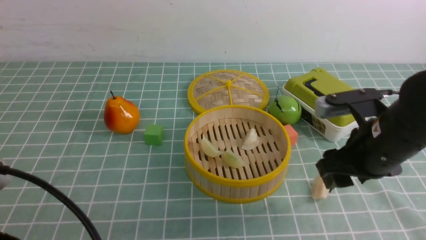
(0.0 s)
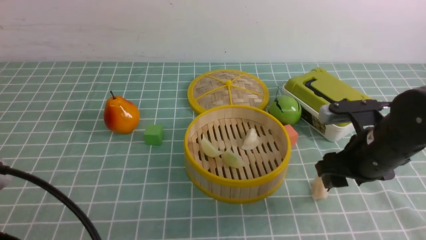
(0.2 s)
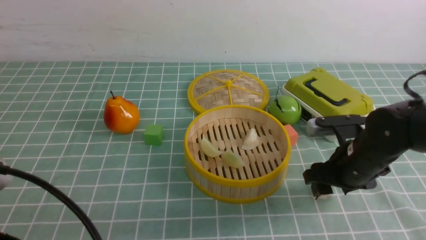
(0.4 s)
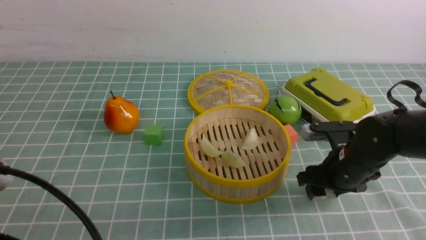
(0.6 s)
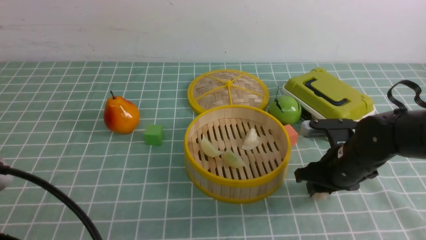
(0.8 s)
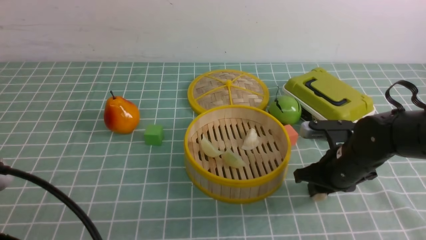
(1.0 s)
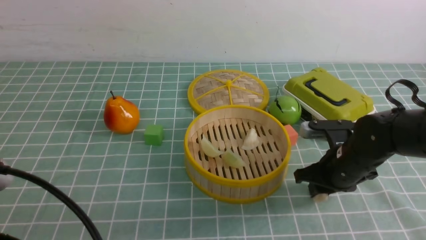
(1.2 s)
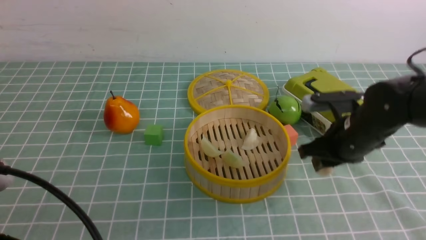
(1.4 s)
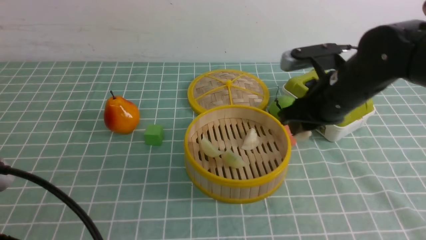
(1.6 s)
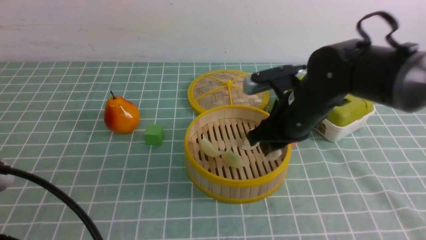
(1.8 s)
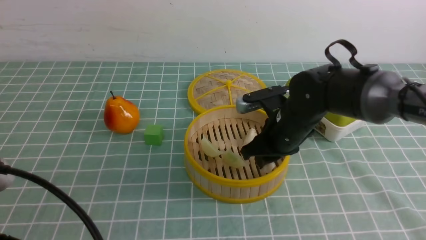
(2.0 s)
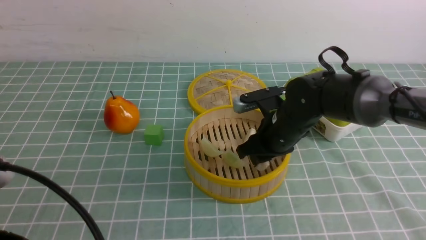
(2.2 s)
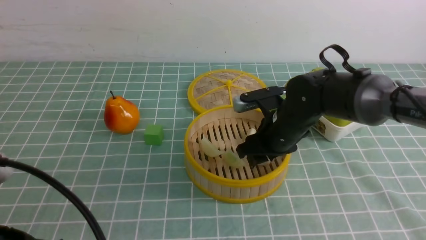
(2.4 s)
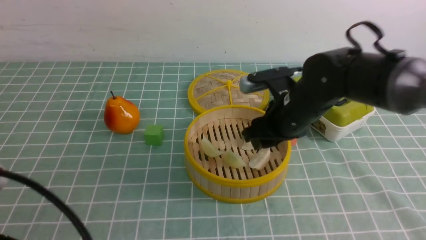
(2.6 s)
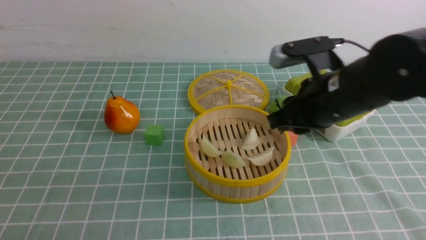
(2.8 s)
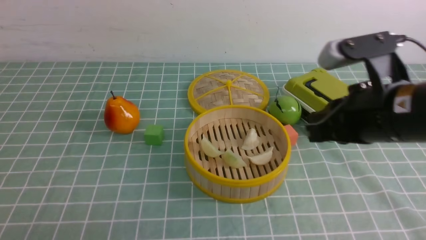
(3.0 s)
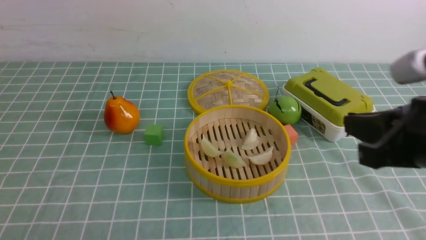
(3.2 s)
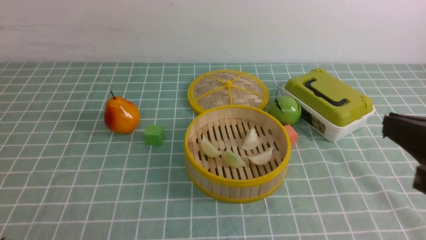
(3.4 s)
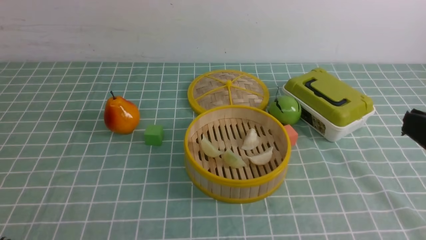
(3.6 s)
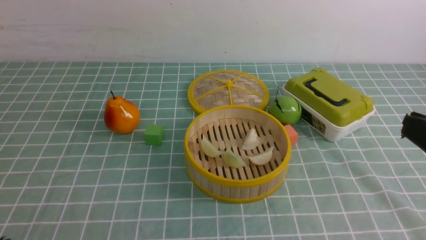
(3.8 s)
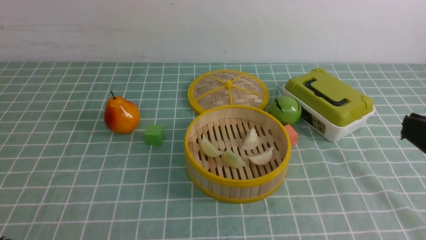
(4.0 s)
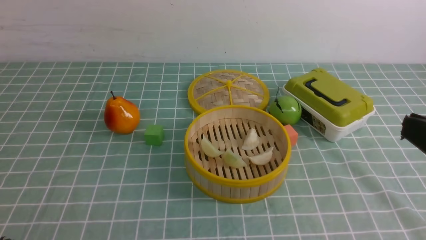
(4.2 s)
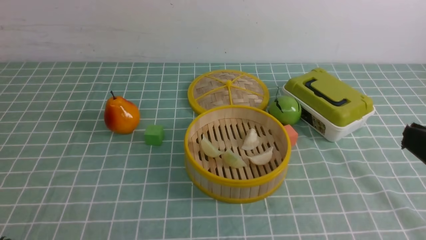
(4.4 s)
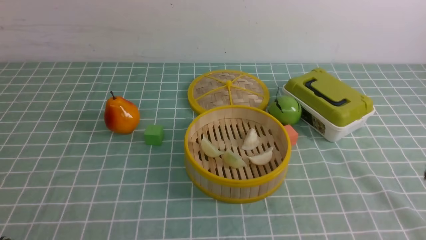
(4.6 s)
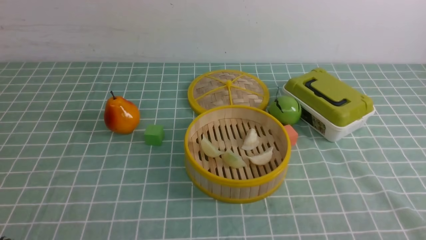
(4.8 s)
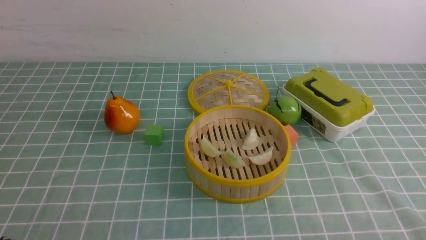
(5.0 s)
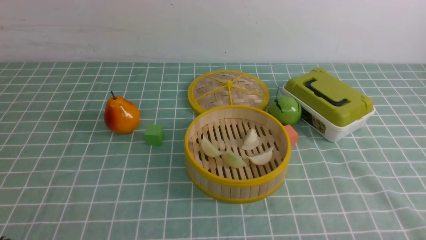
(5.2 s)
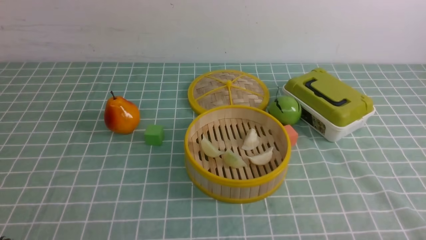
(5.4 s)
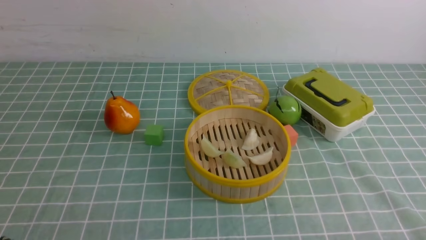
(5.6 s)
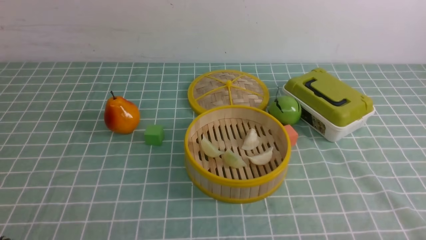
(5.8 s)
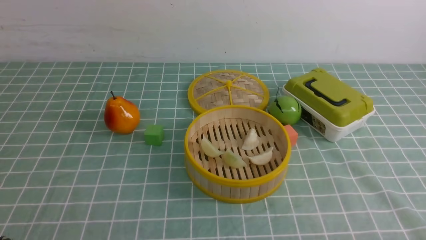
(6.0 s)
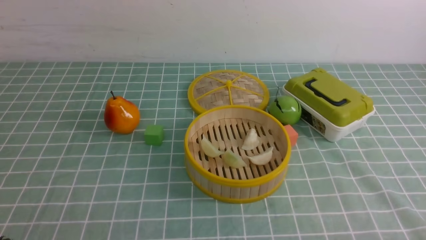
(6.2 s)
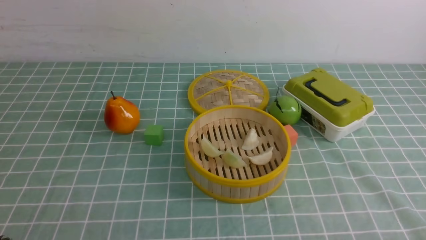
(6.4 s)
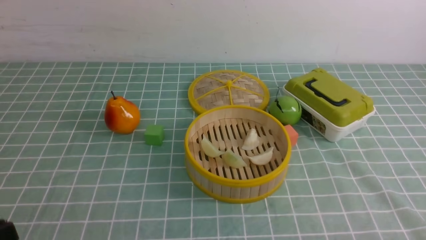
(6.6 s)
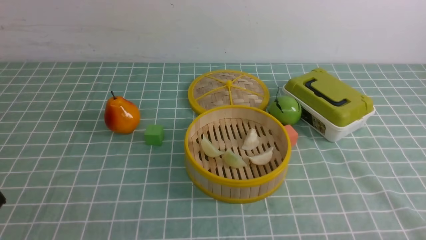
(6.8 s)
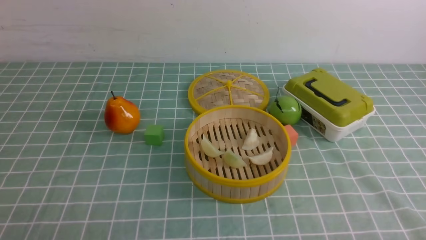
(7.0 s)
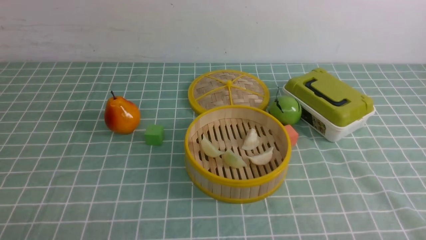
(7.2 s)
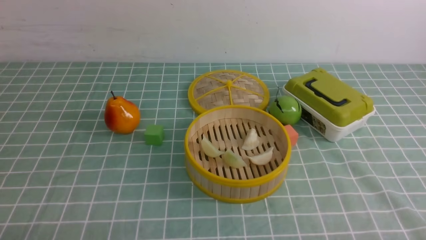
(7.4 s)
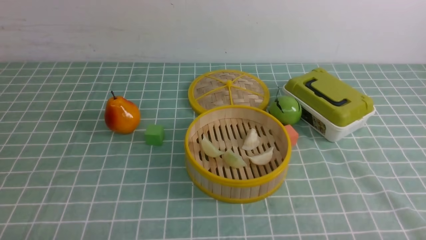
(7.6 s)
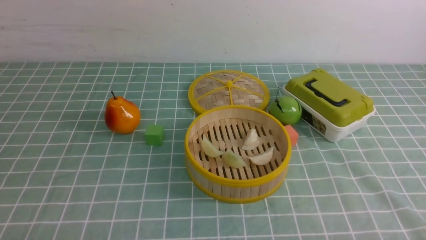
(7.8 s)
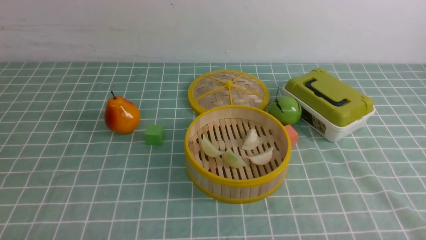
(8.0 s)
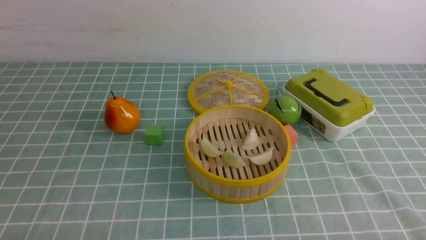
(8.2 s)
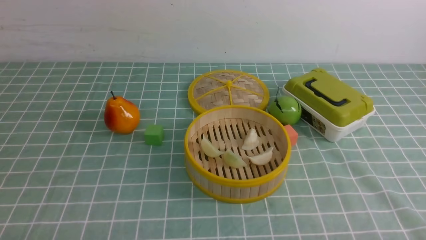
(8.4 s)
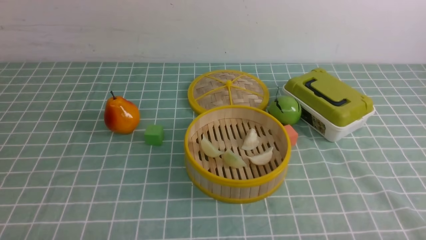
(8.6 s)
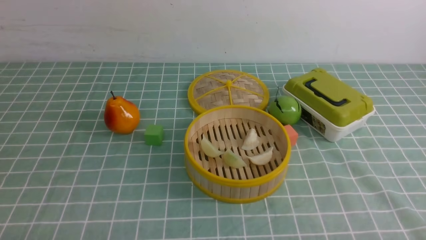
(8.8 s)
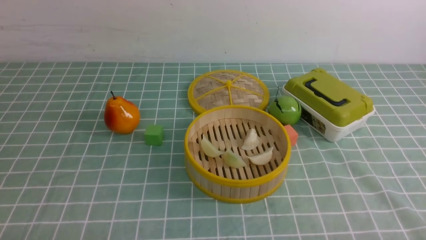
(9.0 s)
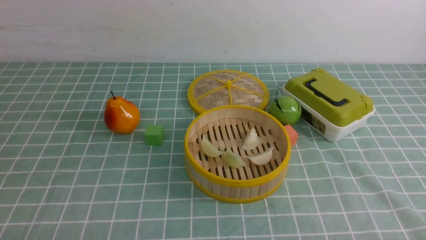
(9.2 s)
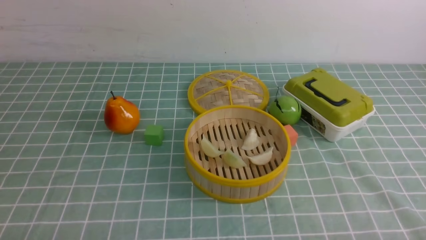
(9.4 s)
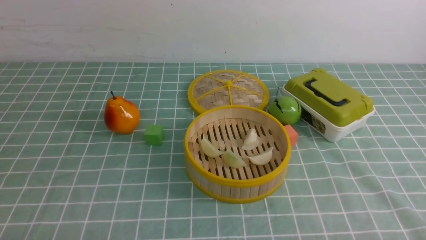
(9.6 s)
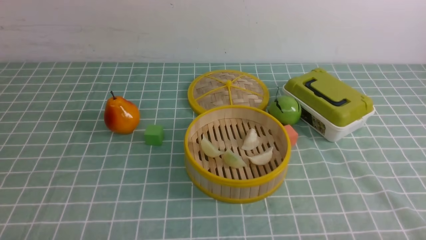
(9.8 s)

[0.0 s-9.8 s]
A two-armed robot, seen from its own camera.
Task of the whole recording: put the dumplings into the steamer on the table with the blue tablecloth.
Step, 0.0 to 0.8 s: use the right arm to grab a dumpling.
Step, 1.2 to 2.6 s: use the right arm to put the dumpling into the steamer.
0.0 to 1.4 s: The right gripper moves forward, approximately 5 cm, goes downward and returns, roughly 10 cm each way, and closes.
1.4 to 2.8 s: The right gripper travels upward by approximately 10 cm.
2.8 to 4.2 s: The right gripper goes some 20 cm backward and to the right.
4.2 to 5.6 s: The right gripper shifts some 15 cm downward.
8.4 to 9.8 s: Both grippers stay about where they are.
